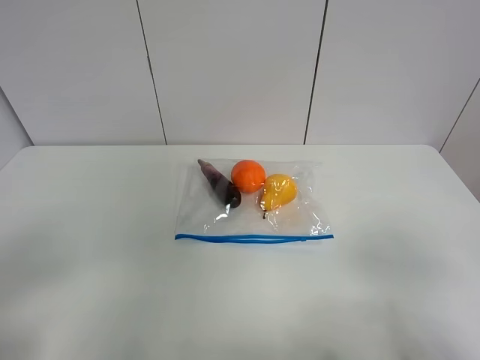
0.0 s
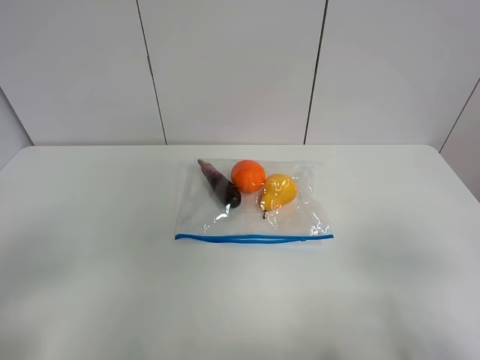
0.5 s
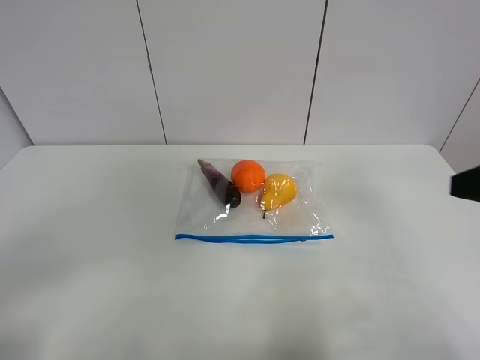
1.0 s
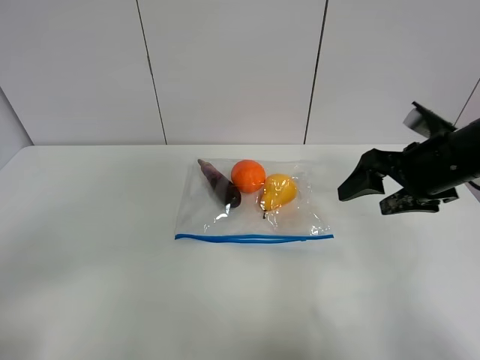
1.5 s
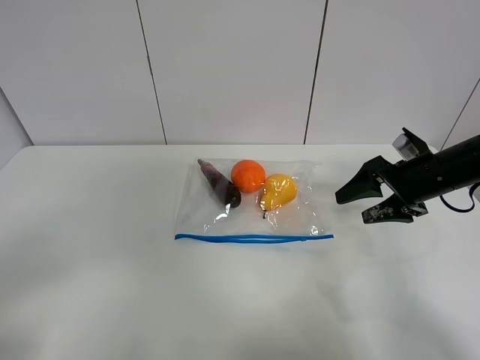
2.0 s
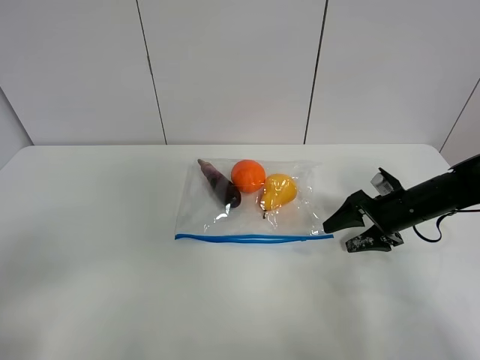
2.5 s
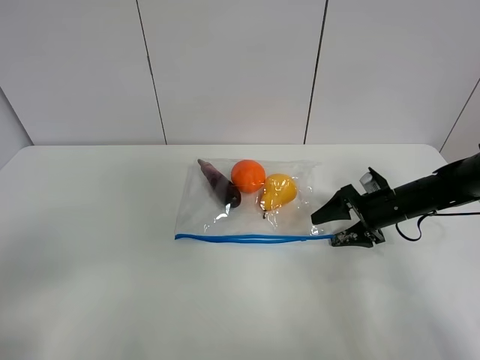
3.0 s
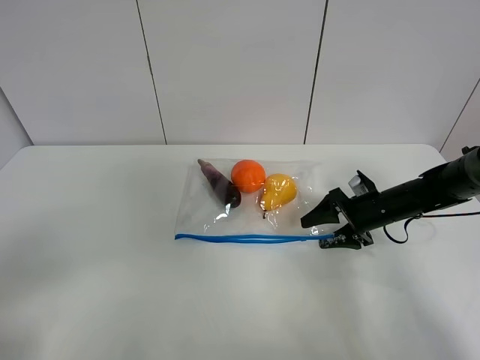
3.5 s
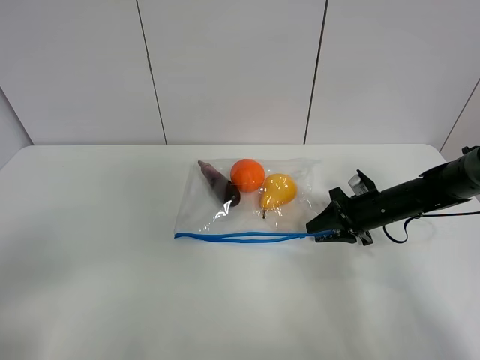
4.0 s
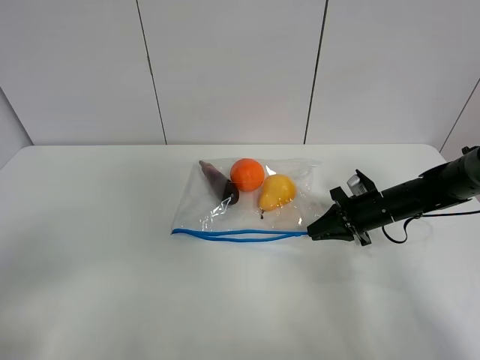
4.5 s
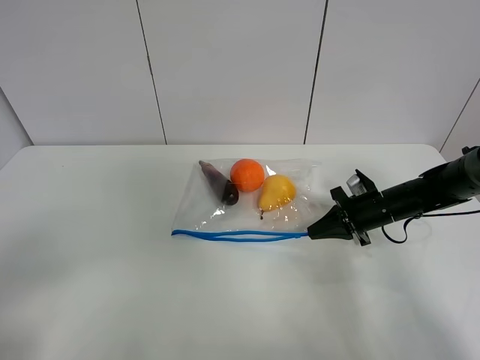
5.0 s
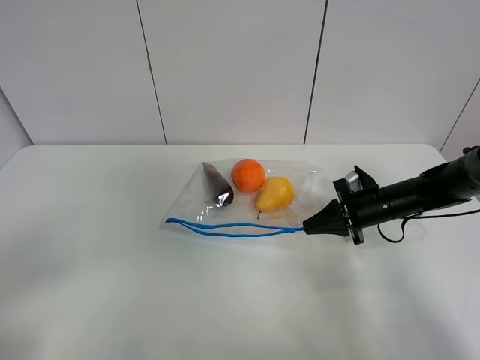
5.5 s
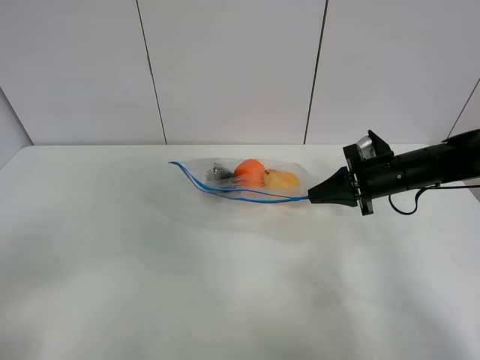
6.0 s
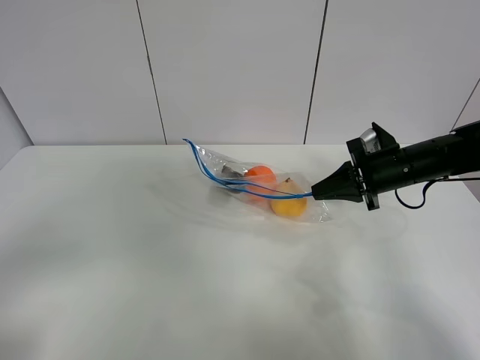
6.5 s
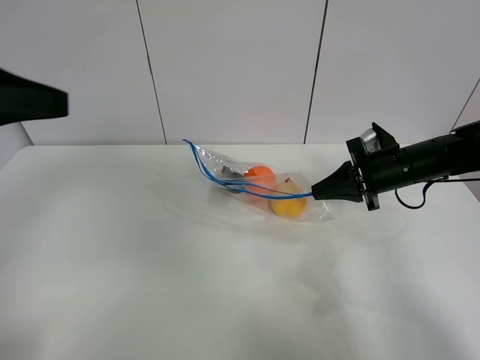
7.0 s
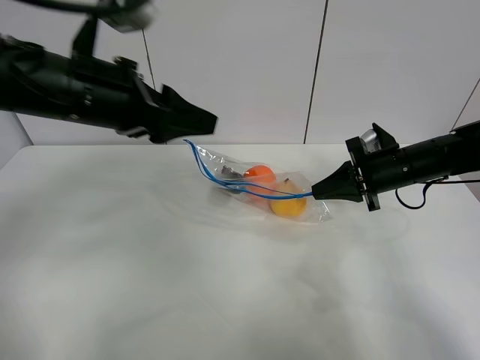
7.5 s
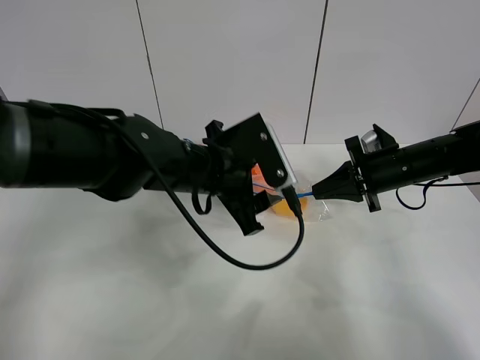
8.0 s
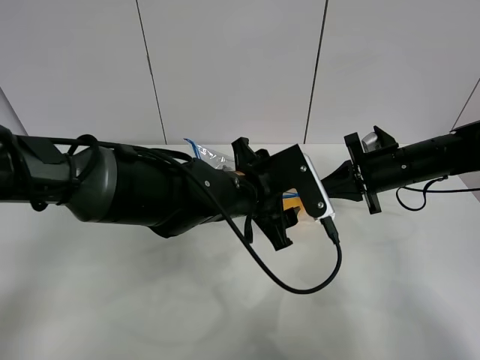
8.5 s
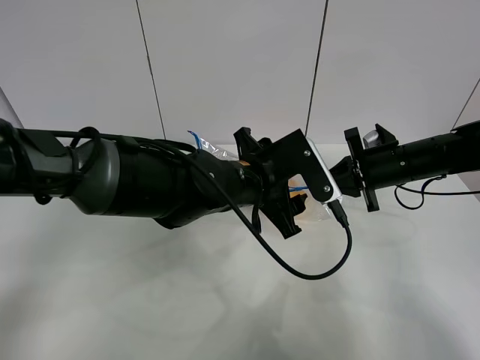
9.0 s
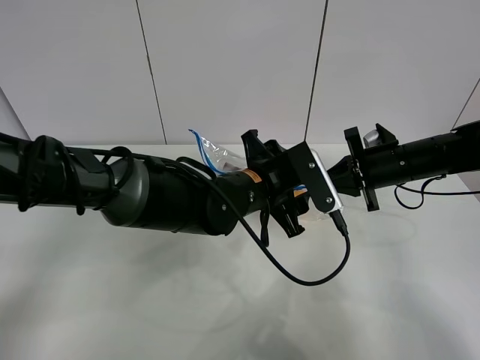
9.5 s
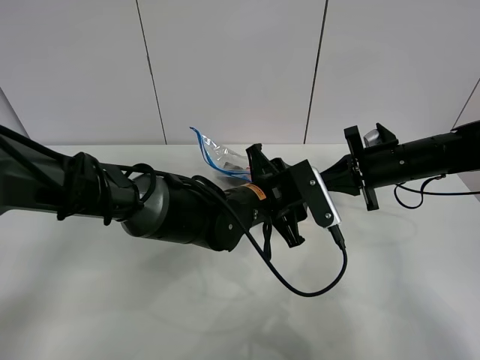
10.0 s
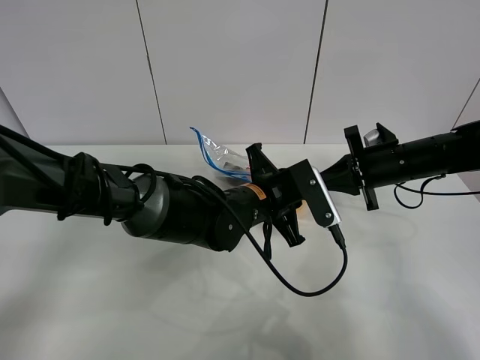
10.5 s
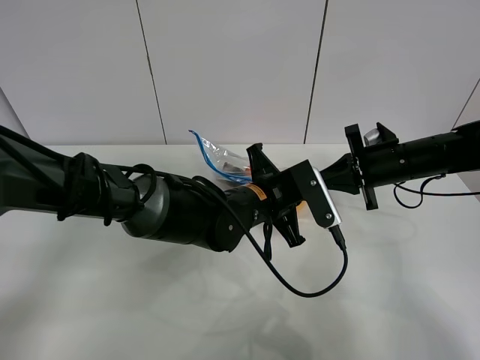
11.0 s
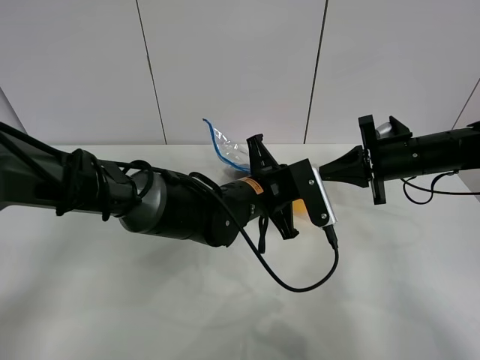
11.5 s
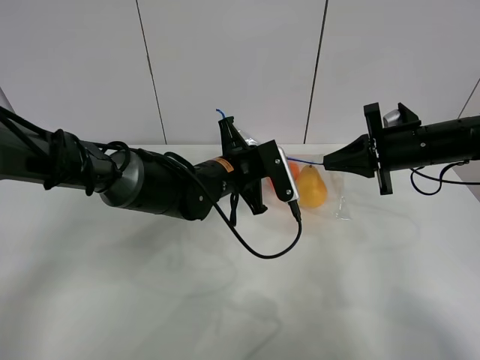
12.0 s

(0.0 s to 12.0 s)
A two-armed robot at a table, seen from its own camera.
Step, 0.0 s - 4.5 s: Grasp the fruit bag with right gripper.
Step, 5.0 s - 6.5 s: Lift the fruit bag with your right gripper.
0.0 s - 2.0 s: The right gripper moves forward, approximately 30 cm.
2.0 s - 4.0 s: The right gripper shifts roughly 10 cm downward, and closes.
4.0 s - 6.0 s: The right gripper goes some 10 cm upward, and closes.
6.0 s - 8.0 s: The left gripper moves forward and to the right, some 40 cm.
8.0 s - 10.0 s: The left gripper travels downward and to the right by some 10 cm.
10.0 s - 12.0 s: The left gripper moves to the left and forward, about 10 cm, and closes its fingers.

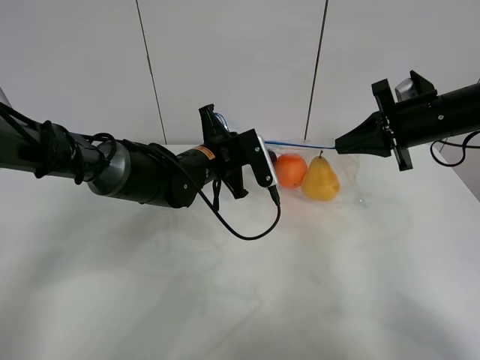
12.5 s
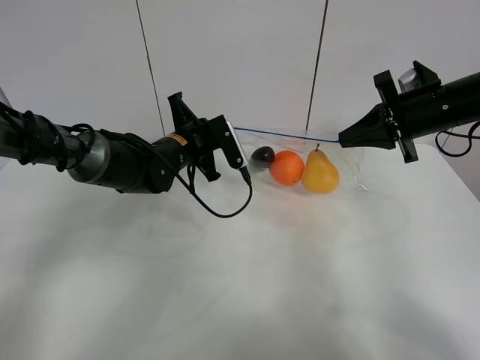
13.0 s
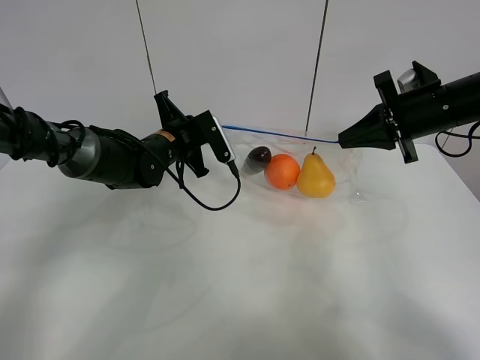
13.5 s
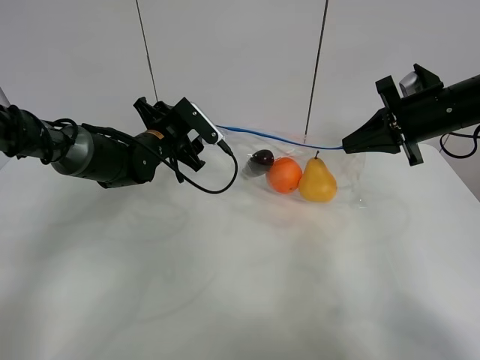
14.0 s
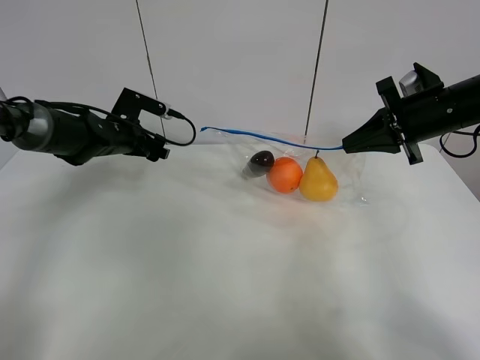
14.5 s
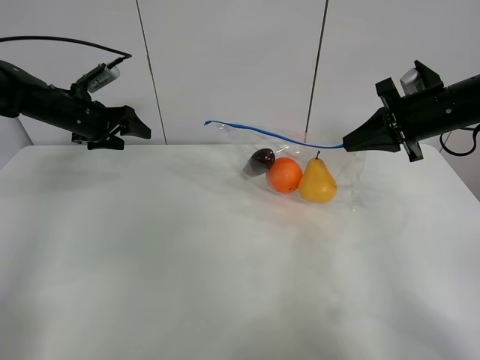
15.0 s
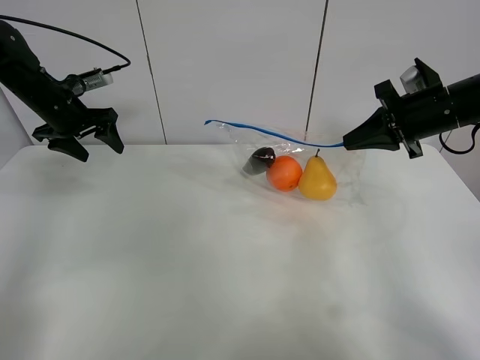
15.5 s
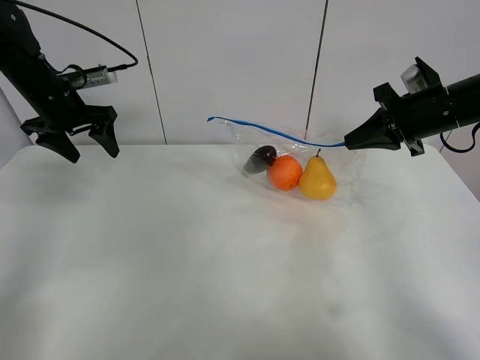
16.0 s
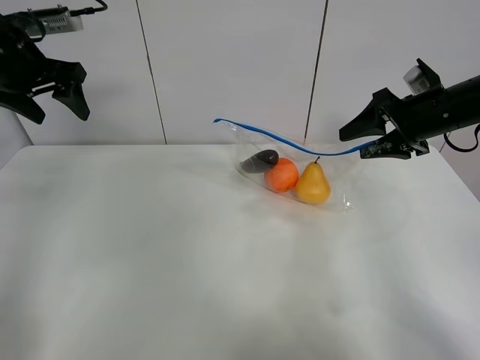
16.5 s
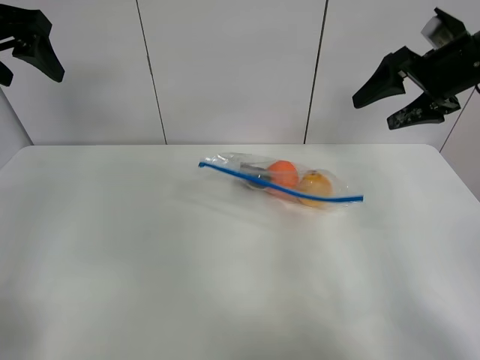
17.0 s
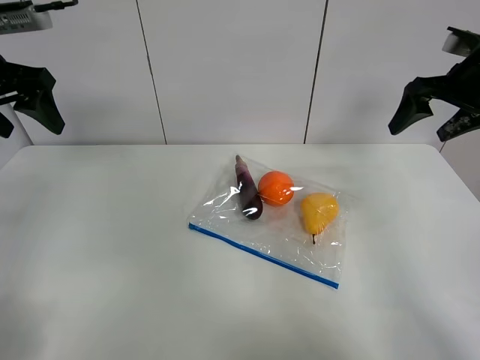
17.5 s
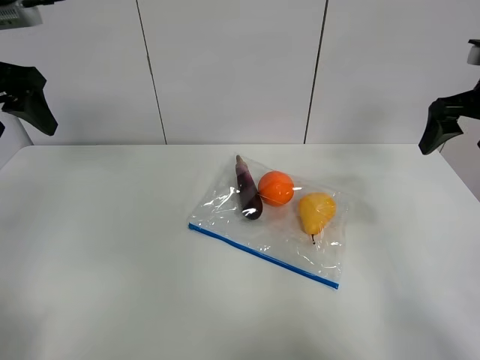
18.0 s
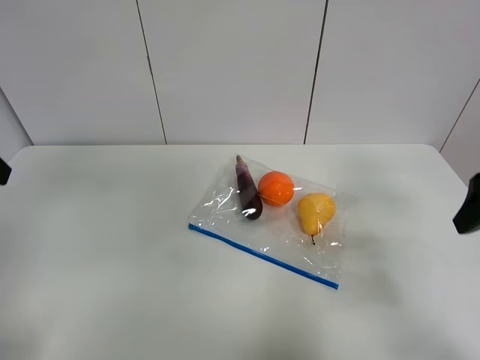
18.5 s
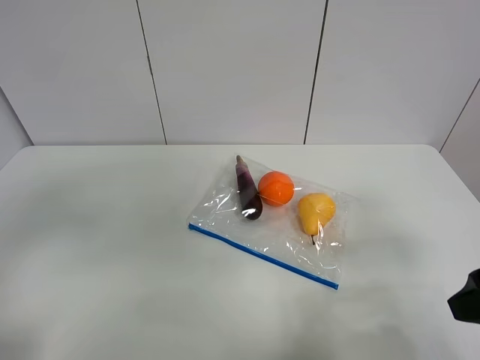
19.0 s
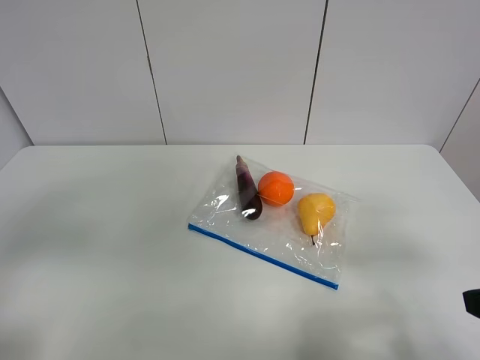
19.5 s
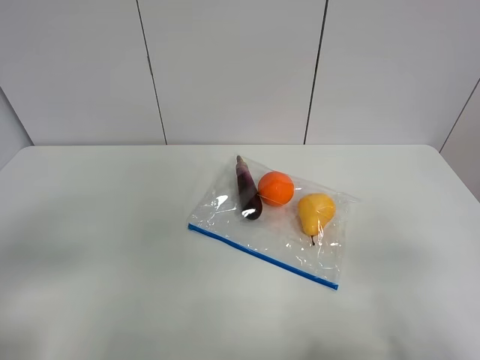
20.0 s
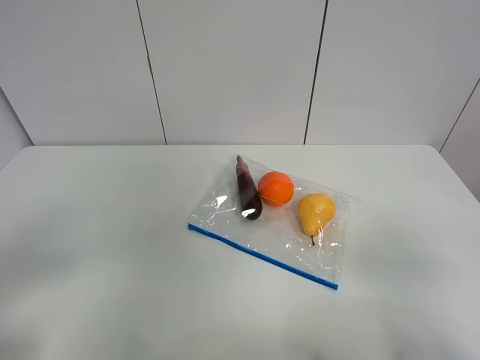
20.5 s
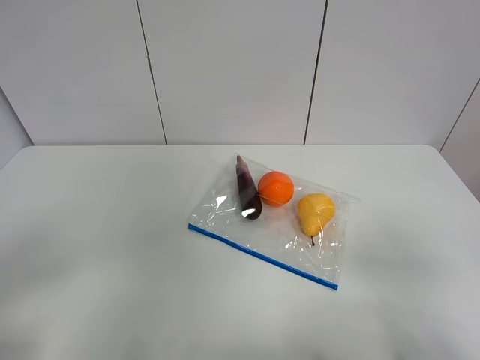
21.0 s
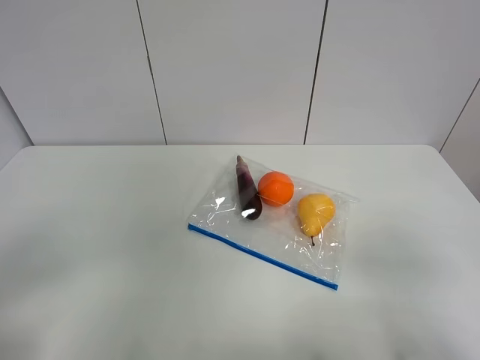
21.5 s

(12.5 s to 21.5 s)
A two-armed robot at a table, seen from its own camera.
Step, 14.5 s - 17.0 s: Place the fruit bag with right gripper.
12.5 s - 14.5 s: The left gripper travels to the left and forward by roughly 20 cm, and opens.
14.5 s - 17.0 s: The left gripper moves upward and backward, roughly 25 cm. Meanwhile the right gripper shifts about 5 cm upward, and opens.
17.0 s - 19.5 s: Both grippers move backward, roughly 30 cm.
19.5 s - 21.5 s: Both grippers move backward, approximately 10 cm.
